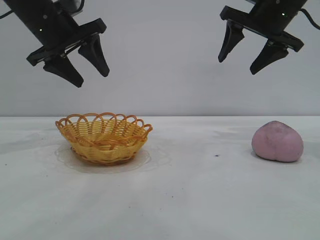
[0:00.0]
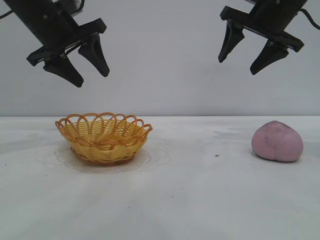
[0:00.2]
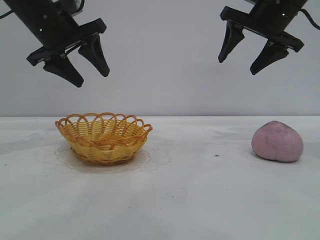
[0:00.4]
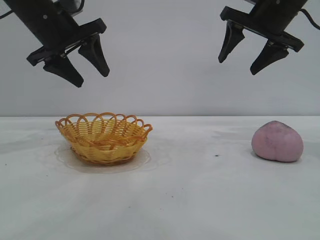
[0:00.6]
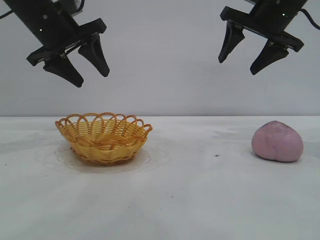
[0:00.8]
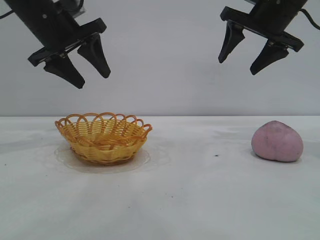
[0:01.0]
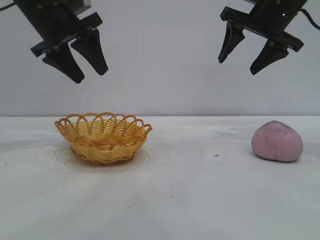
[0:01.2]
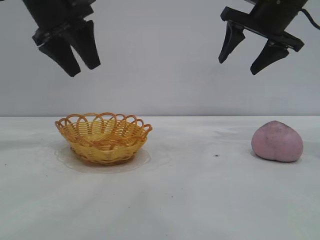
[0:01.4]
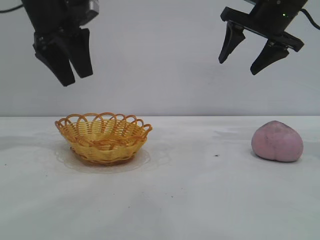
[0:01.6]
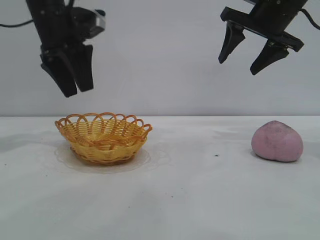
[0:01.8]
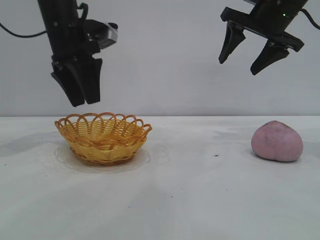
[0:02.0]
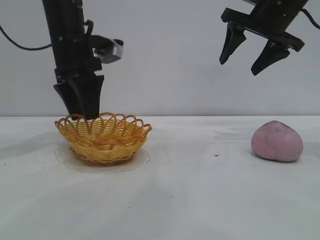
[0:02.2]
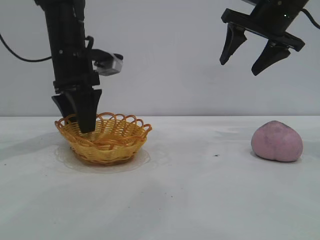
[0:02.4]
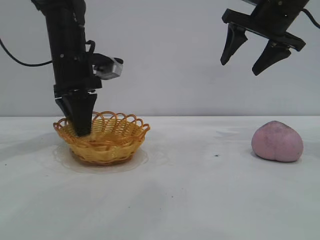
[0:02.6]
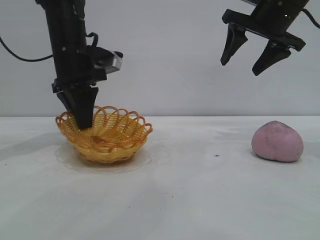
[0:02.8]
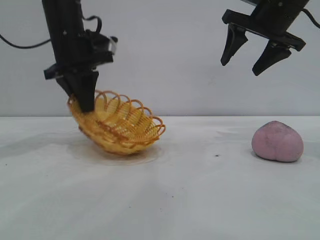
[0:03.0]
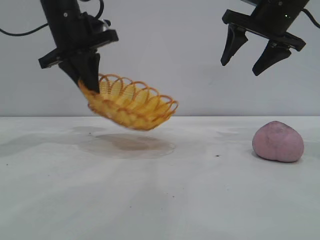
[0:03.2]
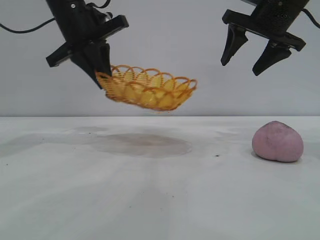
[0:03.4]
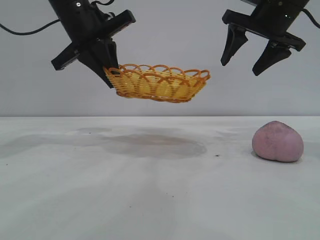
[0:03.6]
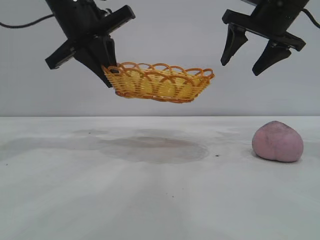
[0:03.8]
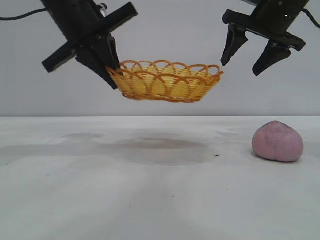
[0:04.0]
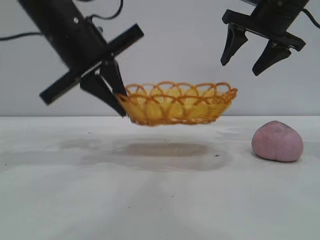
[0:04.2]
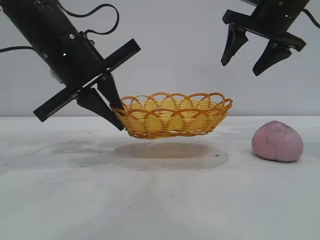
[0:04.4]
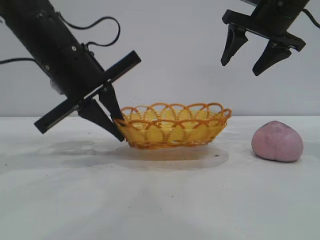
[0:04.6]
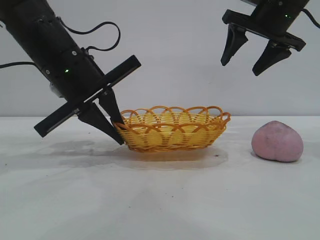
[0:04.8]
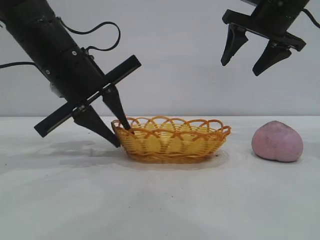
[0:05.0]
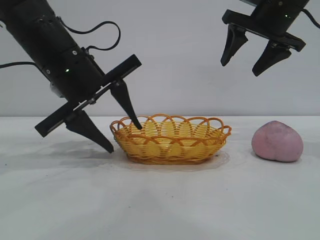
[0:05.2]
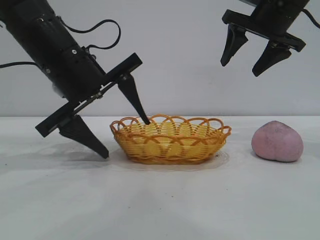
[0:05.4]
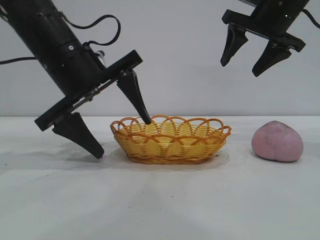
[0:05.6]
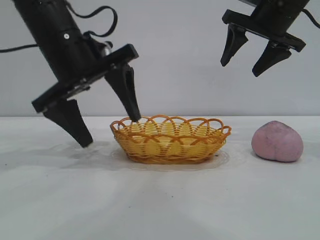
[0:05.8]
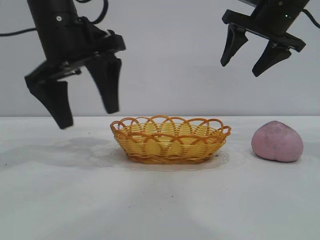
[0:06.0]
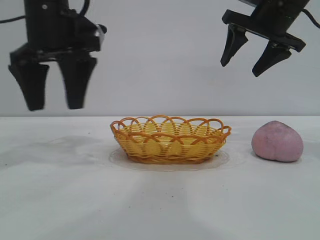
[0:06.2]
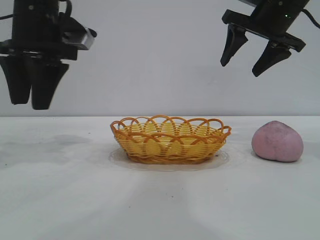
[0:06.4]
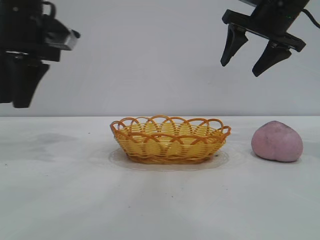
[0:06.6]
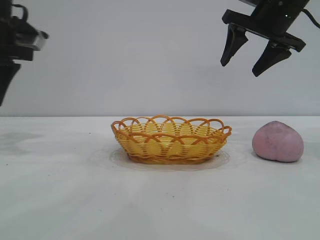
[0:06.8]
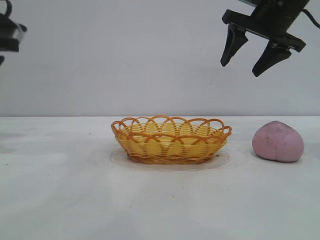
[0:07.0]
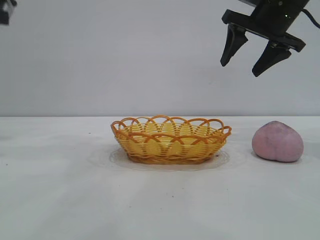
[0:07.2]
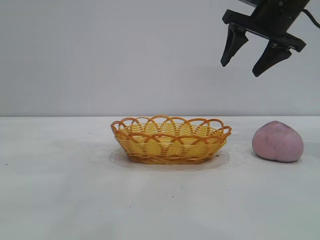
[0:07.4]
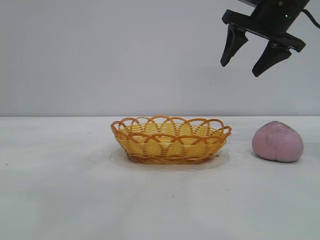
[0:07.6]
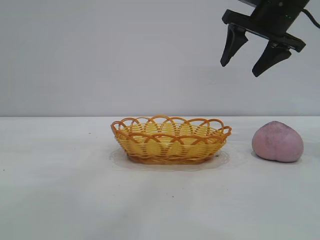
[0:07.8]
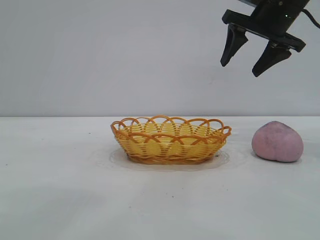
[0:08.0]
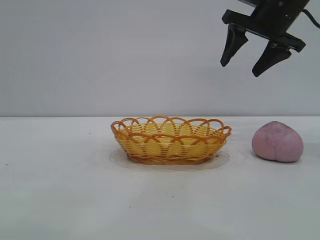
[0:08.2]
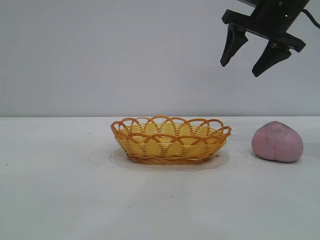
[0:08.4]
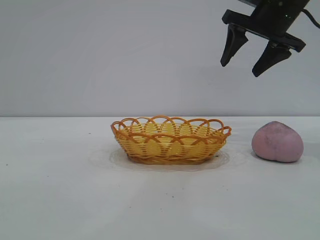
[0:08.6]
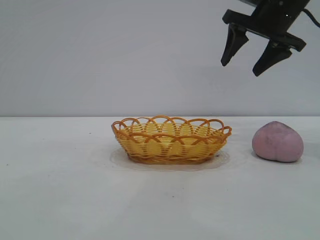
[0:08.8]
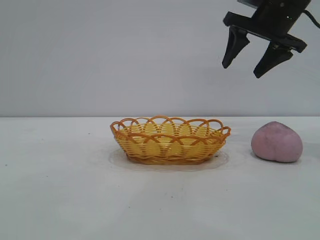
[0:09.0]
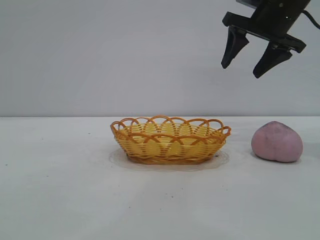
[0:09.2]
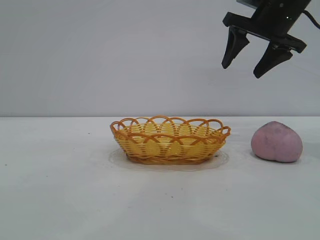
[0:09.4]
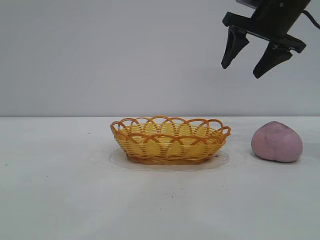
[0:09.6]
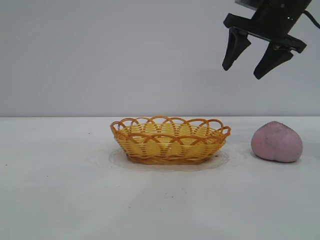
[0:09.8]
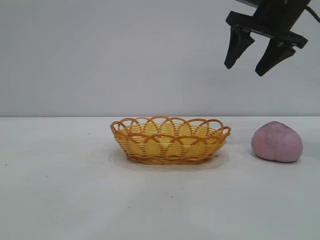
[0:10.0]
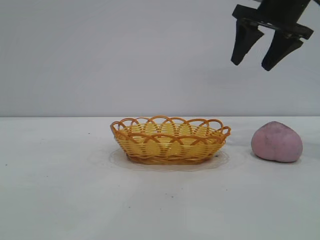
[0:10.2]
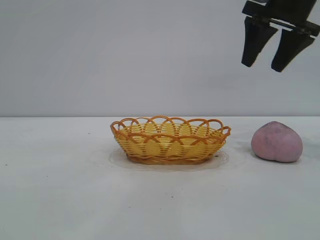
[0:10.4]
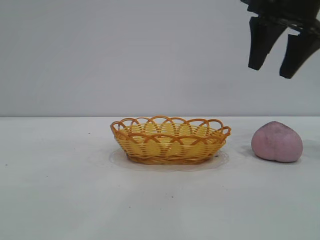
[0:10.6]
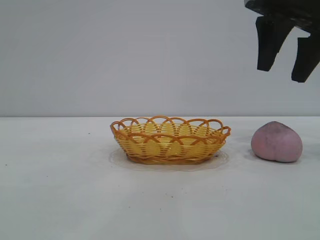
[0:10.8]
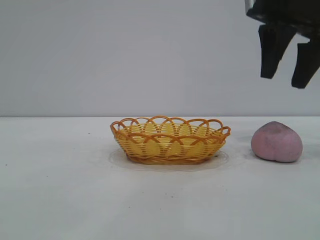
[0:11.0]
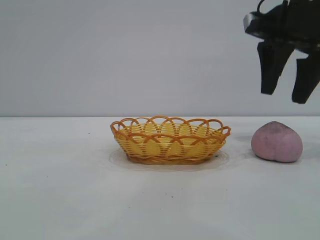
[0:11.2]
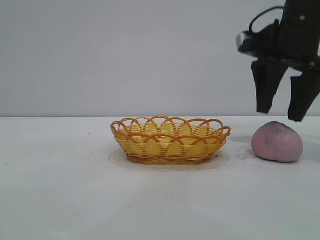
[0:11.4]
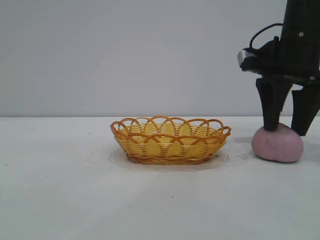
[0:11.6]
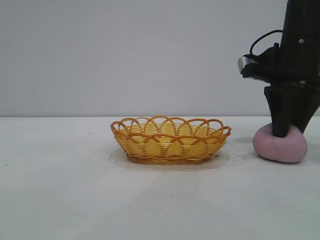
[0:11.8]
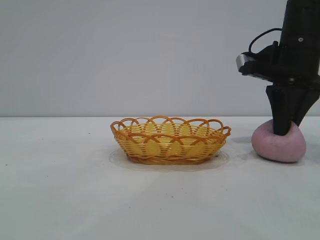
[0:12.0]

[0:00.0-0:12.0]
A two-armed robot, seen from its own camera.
Task of the whole recording: pick up the peach and put it into the basket.
Step, 0:00.0 to 0:06.0: Move the basket to the center of view.

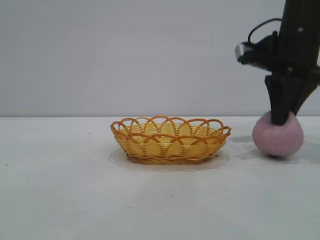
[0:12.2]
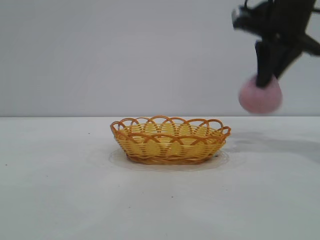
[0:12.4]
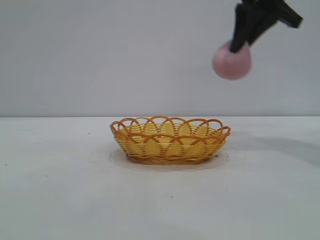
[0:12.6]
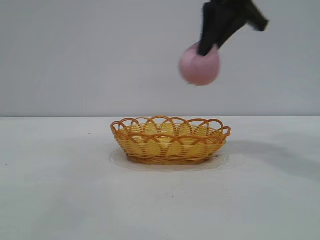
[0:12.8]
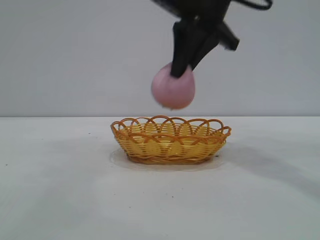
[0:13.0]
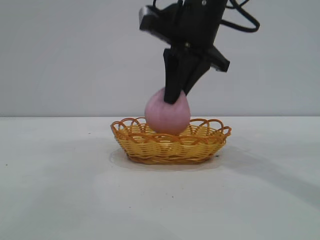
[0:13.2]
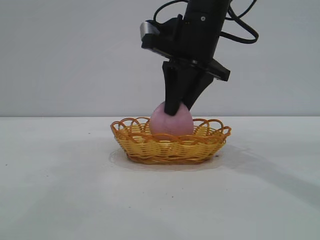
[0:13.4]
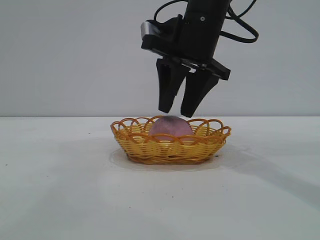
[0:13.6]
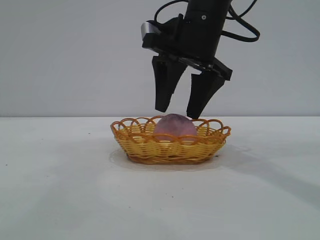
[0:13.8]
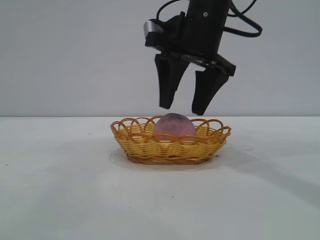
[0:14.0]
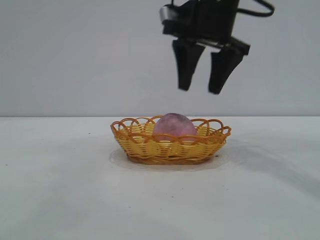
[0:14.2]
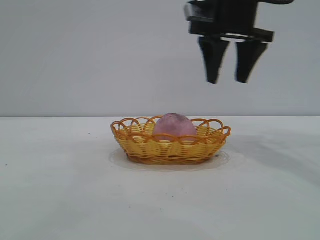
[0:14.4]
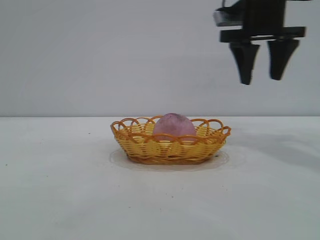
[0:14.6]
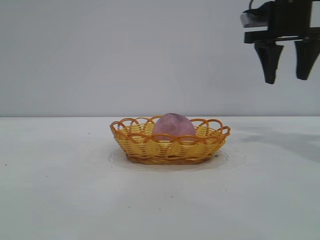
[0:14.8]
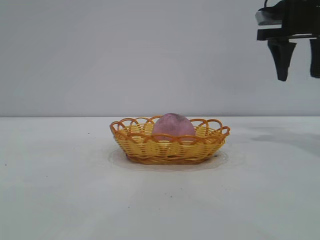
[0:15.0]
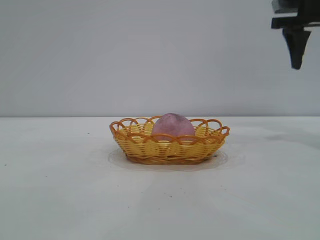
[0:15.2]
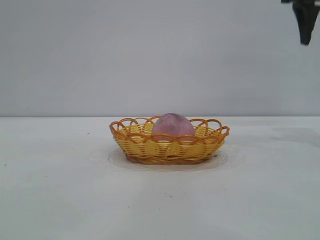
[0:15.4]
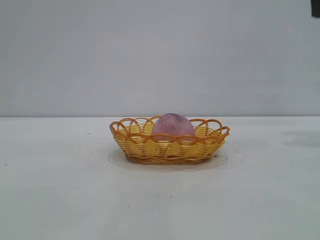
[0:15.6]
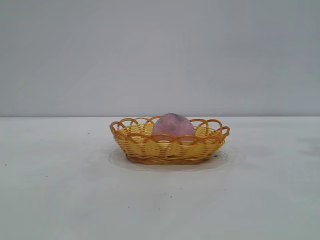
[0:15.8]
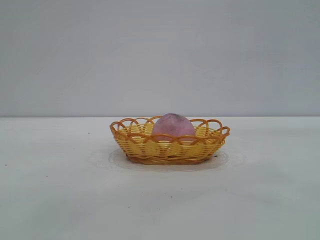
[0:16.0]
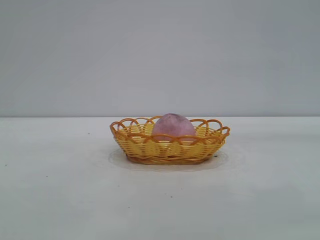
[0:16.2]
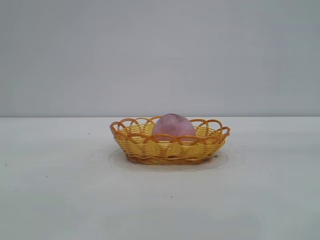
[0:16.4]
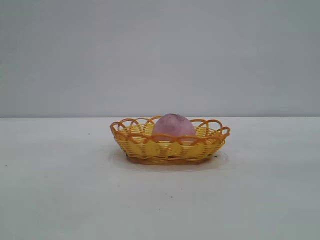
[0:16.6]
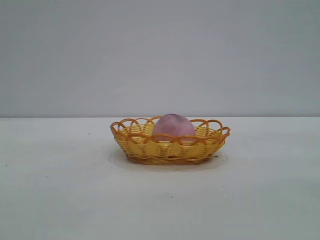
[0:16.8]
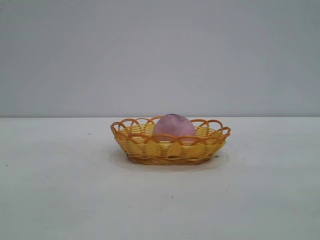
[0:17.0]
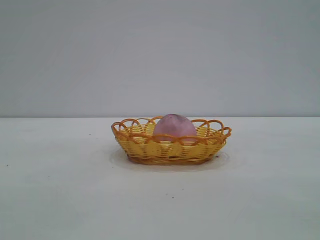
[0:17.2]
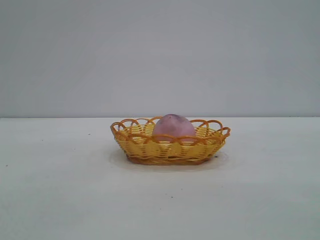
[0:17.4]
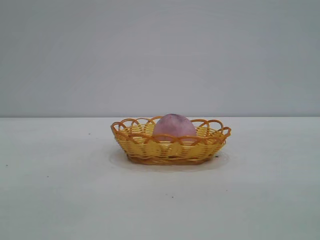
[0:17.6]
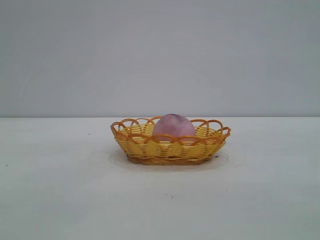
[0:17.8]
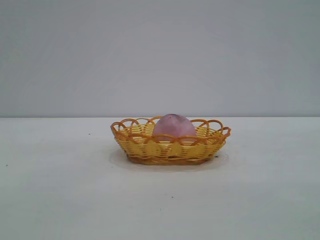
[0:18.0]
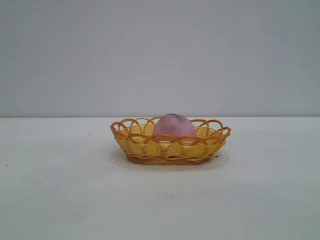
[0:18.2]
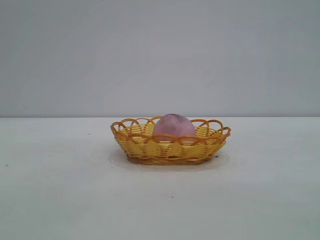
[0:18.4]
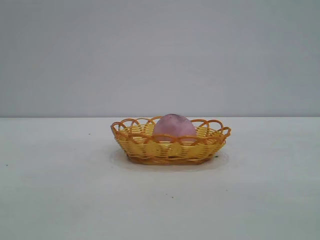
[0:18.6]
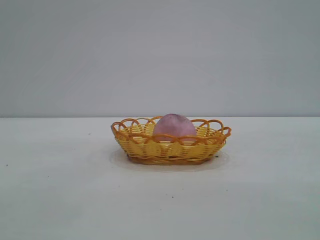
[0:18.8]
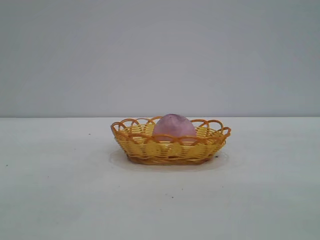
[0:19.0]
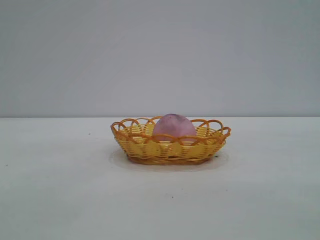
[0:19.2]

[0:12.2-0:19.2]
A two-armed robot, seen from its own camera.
Task of the whole recording: pick up the peach and put it into the basket.
Step, 0:12.6 to 0:14.2: place the peach into the basket.

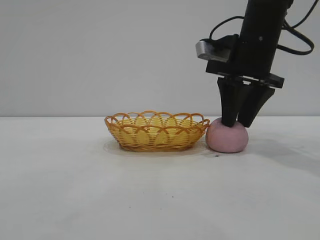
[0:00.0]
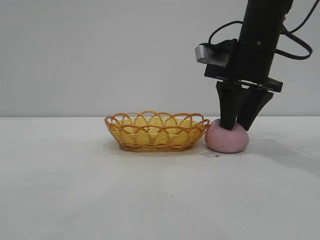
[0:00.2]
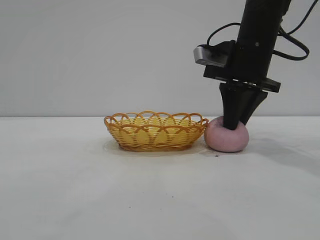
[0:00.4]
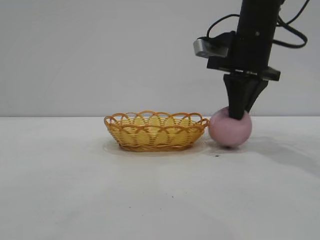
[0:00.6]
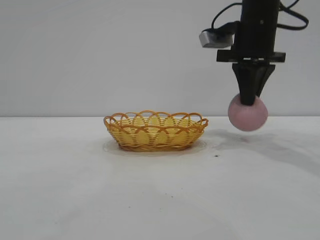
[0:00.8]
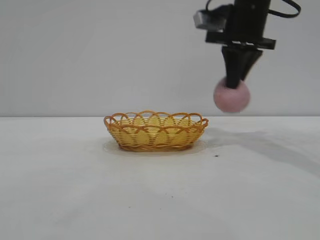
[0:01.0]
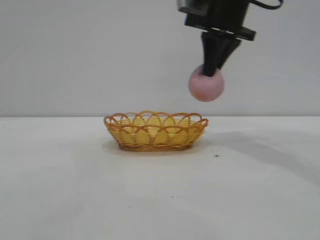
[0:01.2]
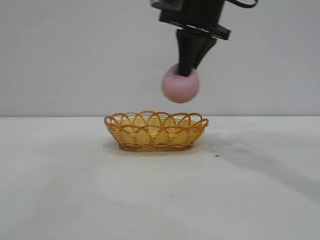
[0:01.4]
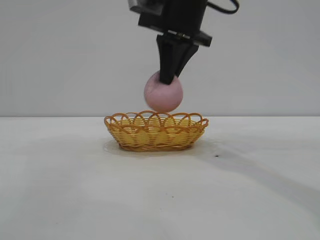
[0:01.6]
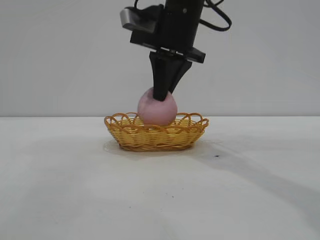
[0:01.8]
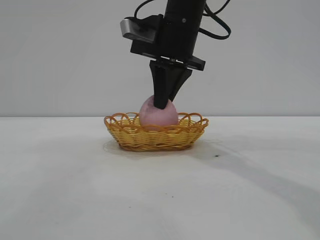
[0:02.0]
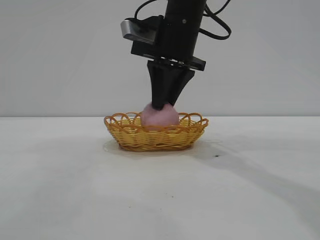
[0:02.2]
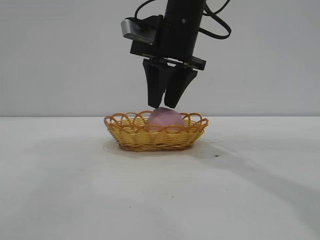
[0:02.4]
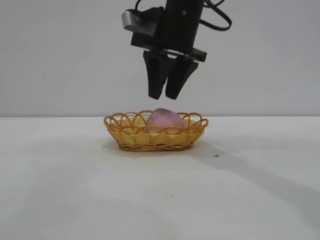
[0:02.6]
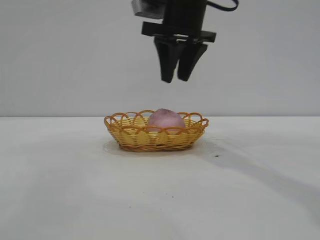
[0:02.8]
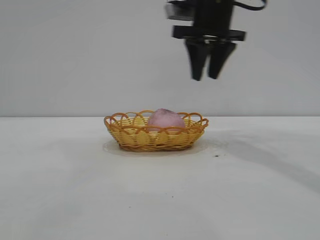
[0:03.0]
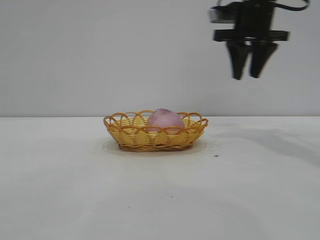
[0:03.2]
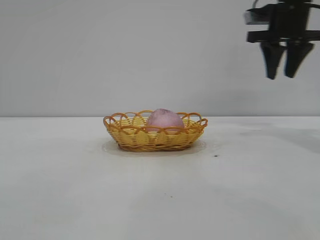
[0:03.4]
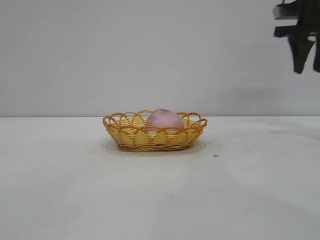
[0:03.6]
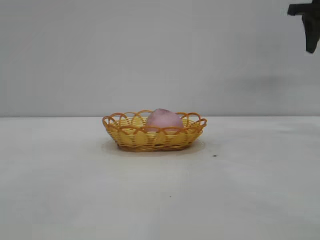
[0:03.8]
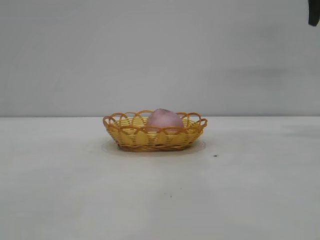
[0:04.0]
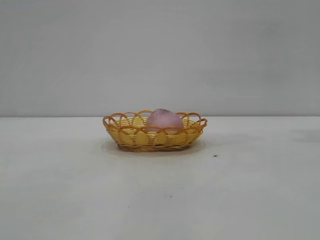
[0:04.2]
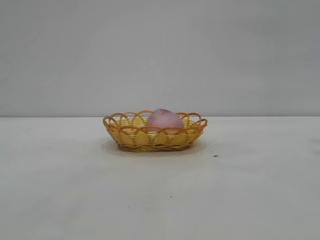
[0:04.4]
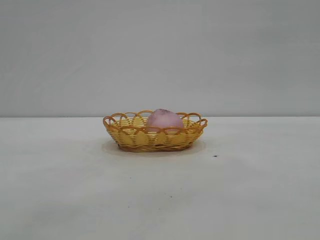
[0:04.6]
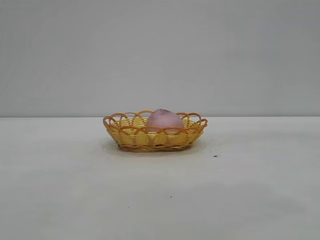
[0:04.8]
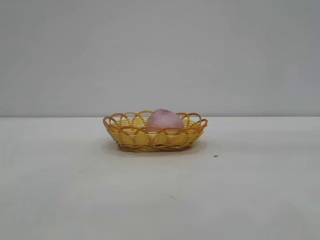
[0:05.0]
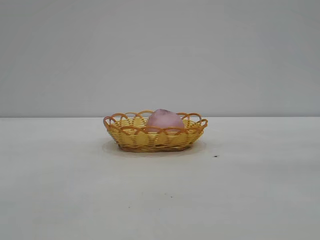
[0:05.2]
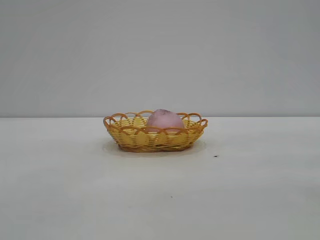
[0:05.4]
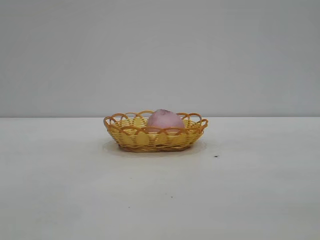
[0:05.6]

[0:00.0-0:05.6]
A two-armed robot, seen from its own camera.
Task of the whole recording: pick up the peach and put it into the basket.
Step, 0:01.2 to 0:02.6: place the peach into the basket.
